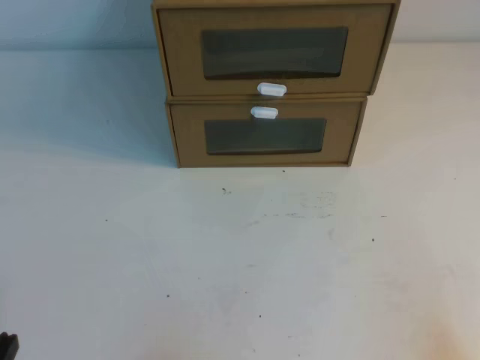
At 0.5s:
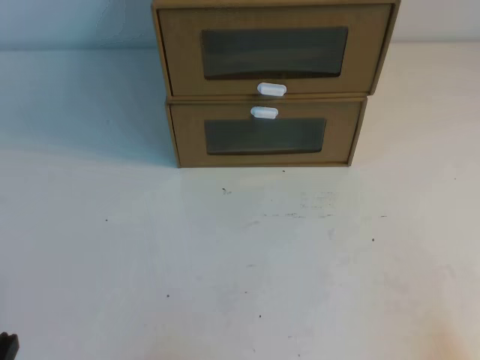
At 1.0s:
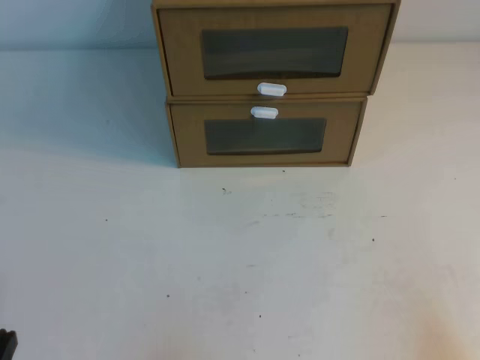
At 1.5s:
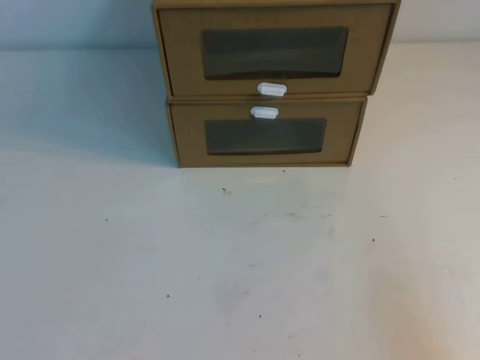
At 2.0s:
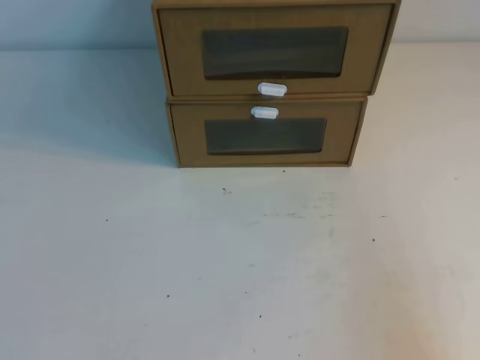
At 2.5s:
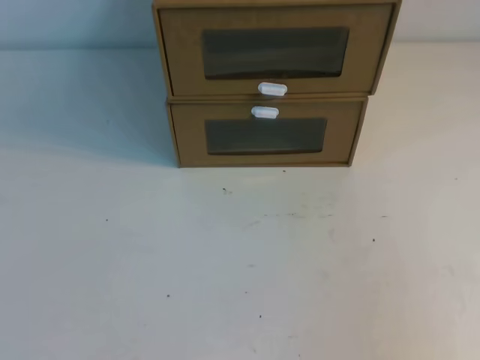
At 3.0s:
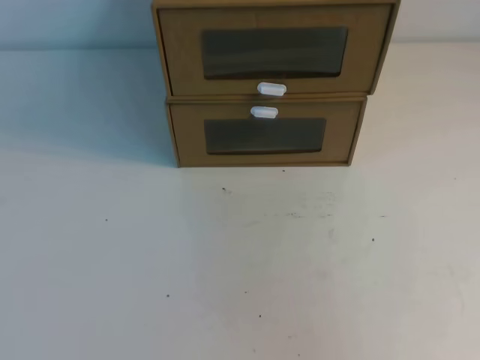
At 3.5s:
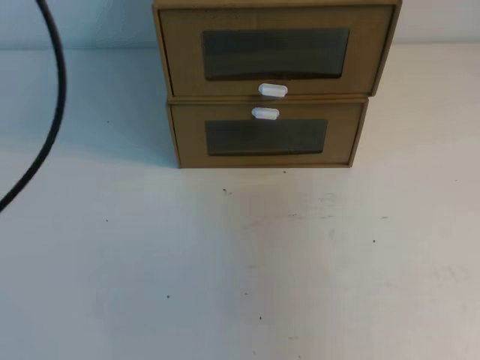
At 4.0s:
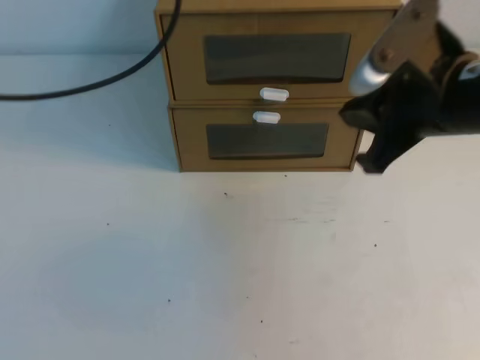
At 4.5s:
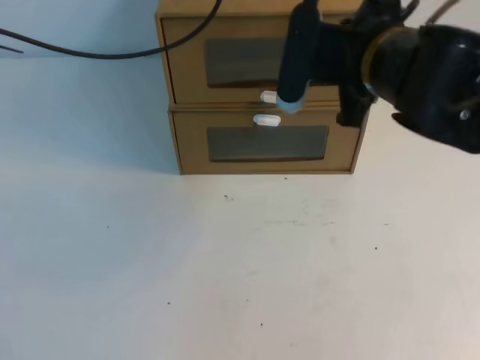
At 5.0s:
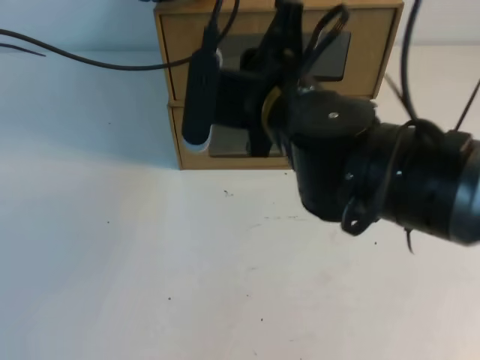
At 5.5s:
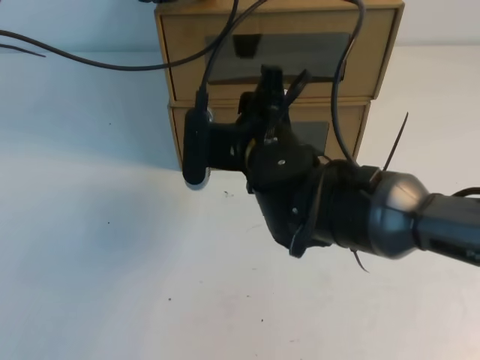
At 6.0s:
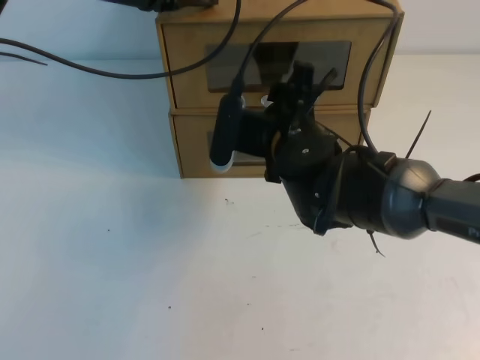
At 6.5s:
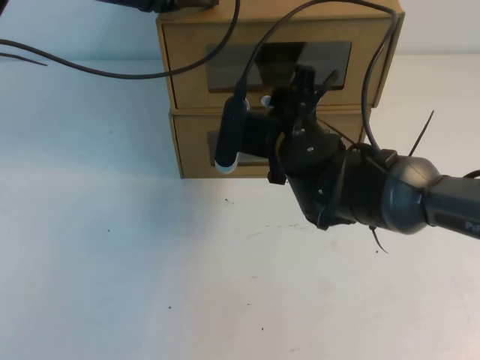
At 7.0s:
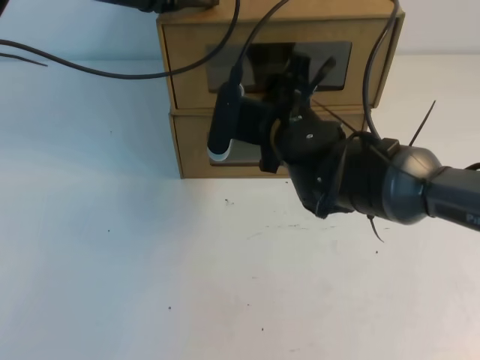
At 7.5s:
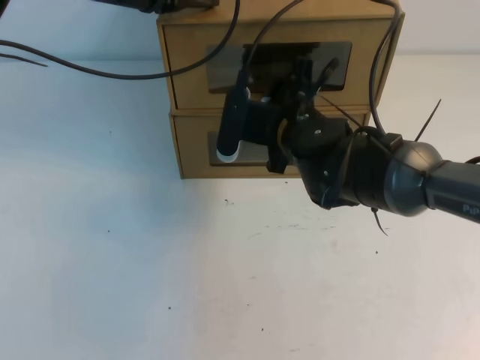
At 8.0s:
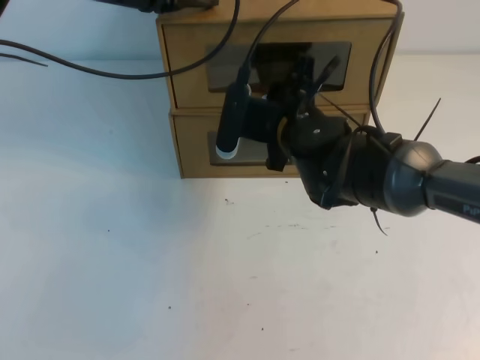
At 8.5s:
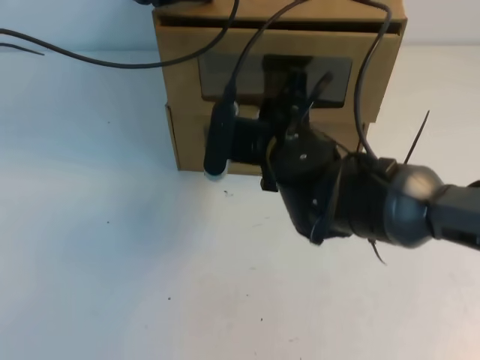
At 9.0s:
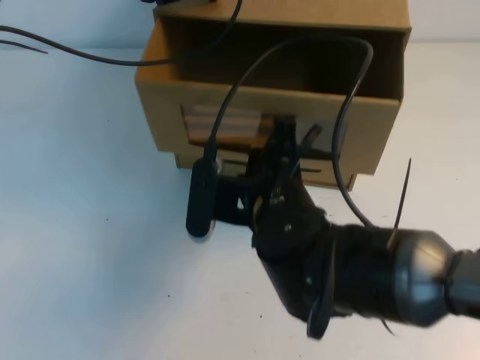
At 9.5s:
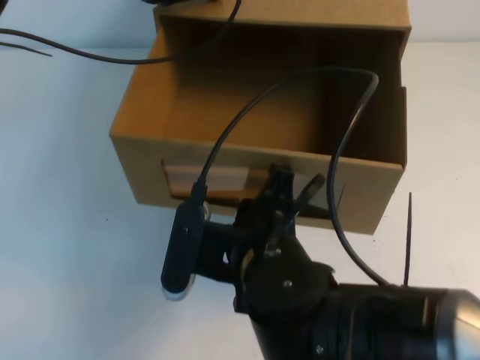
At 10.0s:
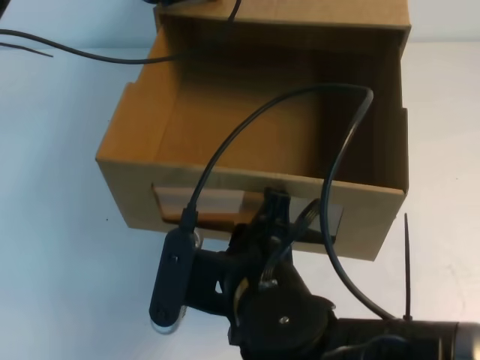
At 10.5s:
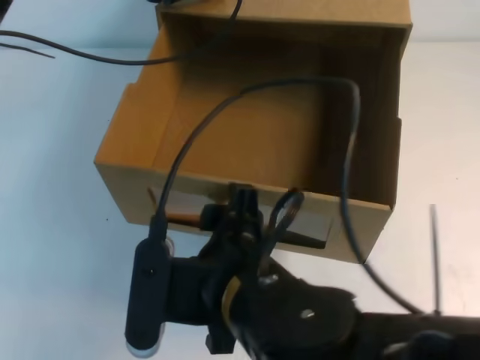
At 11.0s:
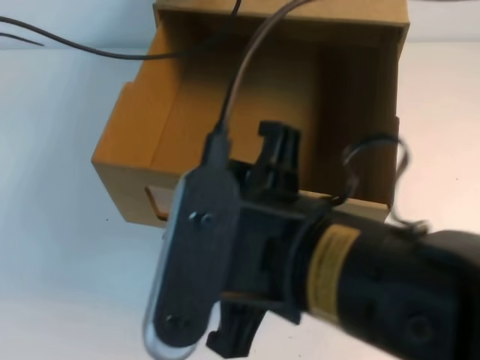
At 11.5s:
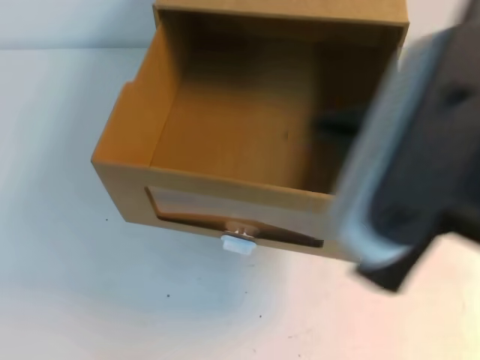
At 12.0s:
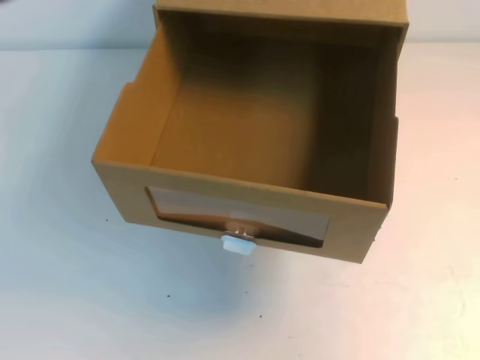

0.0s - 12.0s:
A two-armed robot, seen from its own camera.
Task of the whole recording: open the shoebox on the table.
2.0s - 4.0s: The left gripper goes approximately 35 cm forward and upward. Meanwhile the right gripper shifts roughly 30 cm forward, to the left and upward.
4.0s - 6.0s: The left gripper goes about 15 cm forward, downward and to the right, while the right gripper goes approximately 20 cm to the left and downward, and opens.
6.0s - 8.0s: The right gripper closes up.
8.0s - 10.0s: The right gripper moves backward, some 20 cm.
10.0s - 12.0s: The left gripper goes about 30 cm backward and upward. The right gripper shifts some 30 cm to the right and upward, and closes up.

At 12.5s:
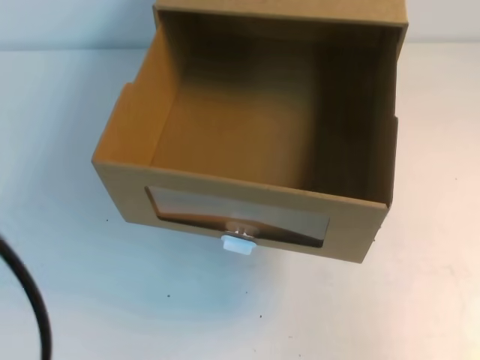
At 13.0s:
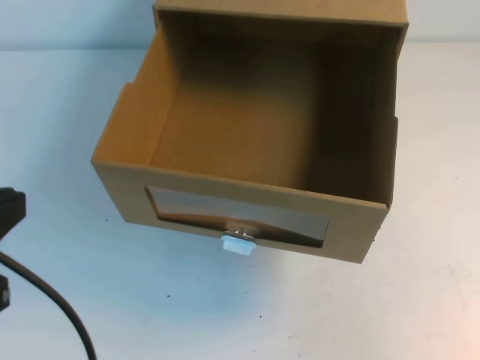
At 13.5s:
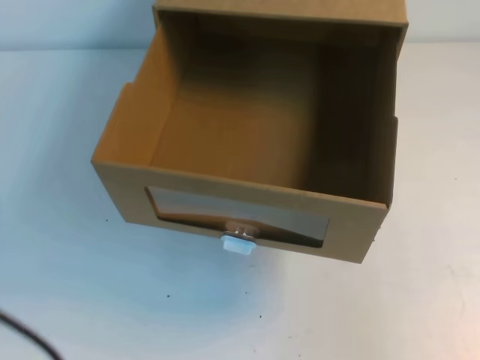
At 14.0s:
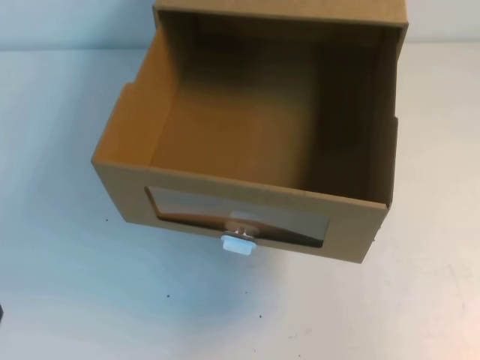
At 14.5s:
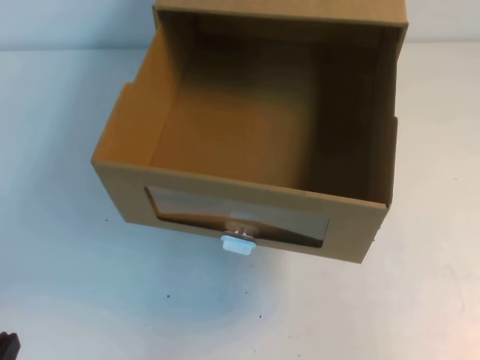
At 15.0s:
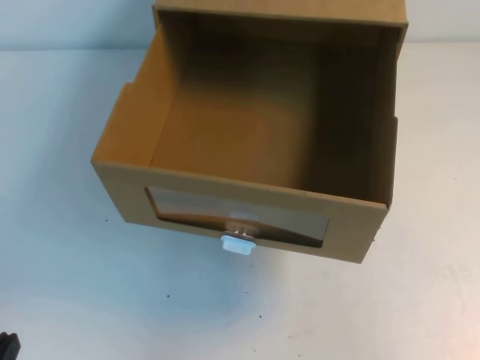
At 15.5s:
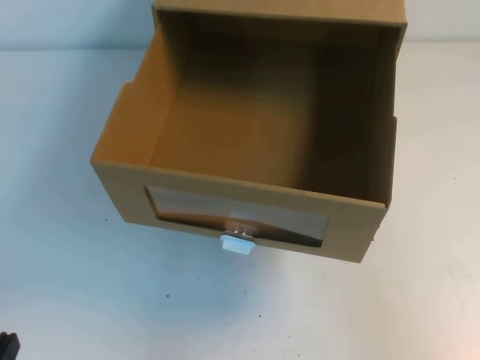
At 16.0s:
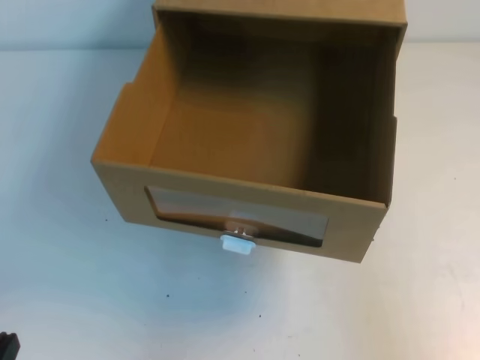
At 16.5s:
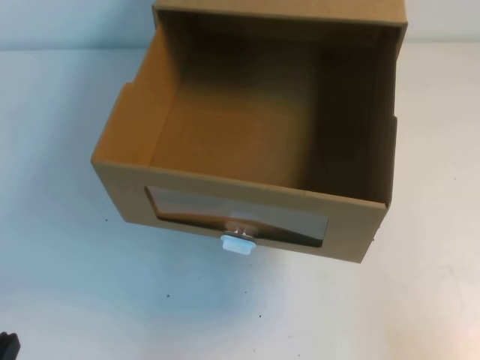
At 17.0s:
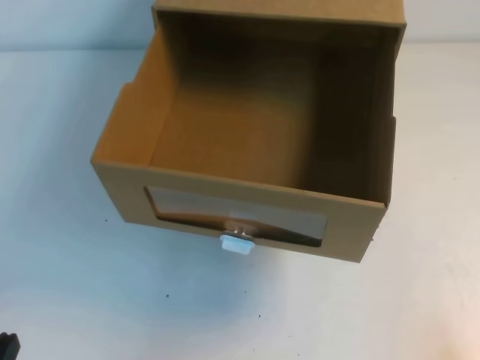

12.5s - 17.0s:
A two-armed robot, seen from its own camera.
Task of the whole recording: open the shoebox on the table.
Step, 12.5s - 17.0s: Open the shoe box.
12.5s - 14.5s: The left gripper moves downward, about 30 cm.
14.5s - 17.0s: The right gripper moves downward, about 15 cm.

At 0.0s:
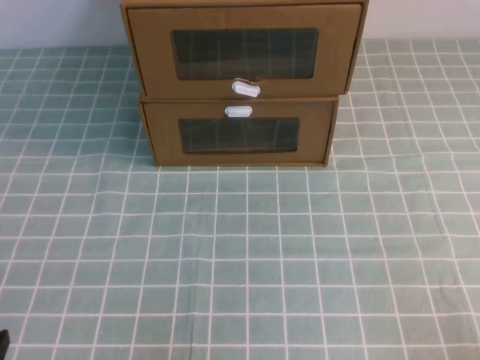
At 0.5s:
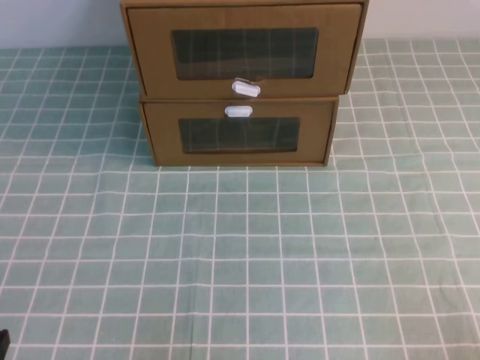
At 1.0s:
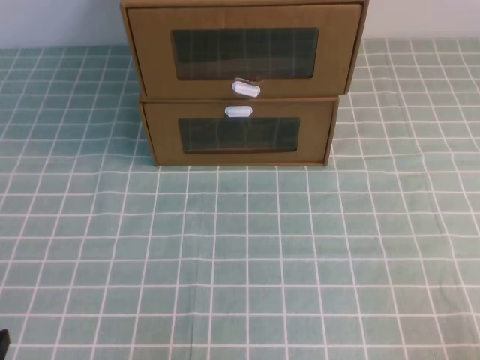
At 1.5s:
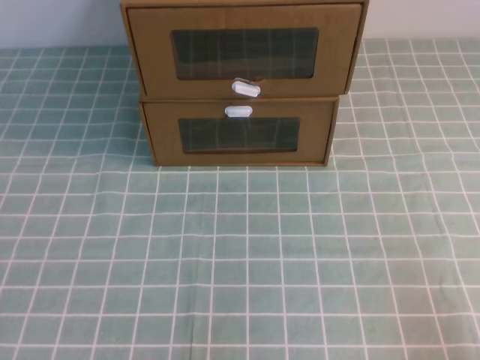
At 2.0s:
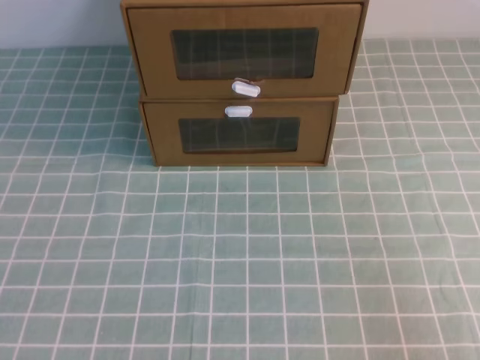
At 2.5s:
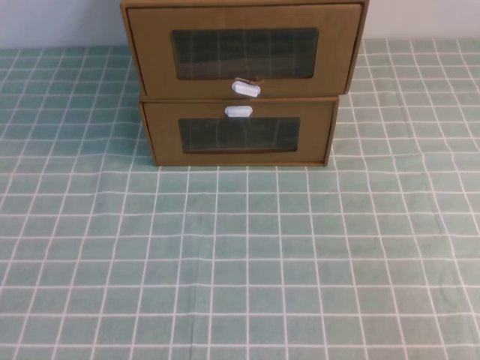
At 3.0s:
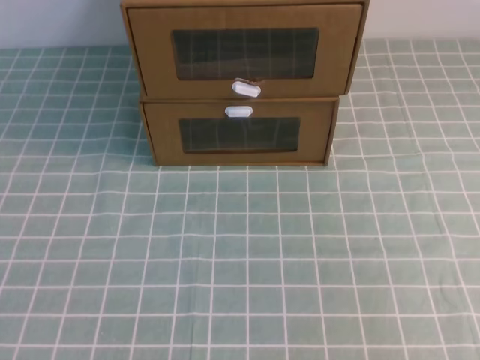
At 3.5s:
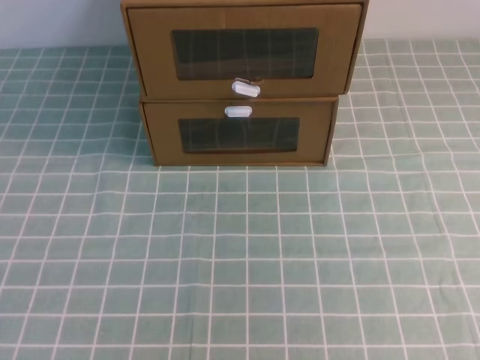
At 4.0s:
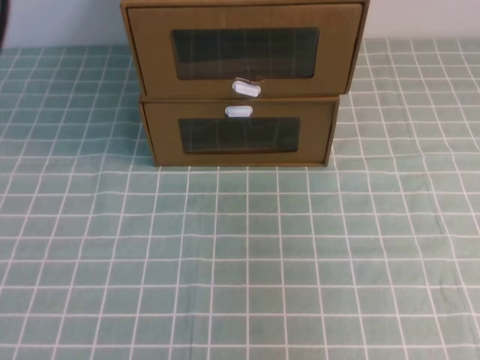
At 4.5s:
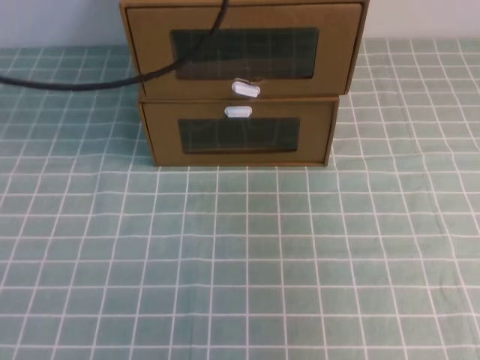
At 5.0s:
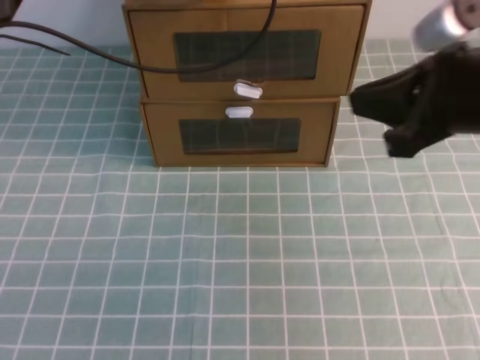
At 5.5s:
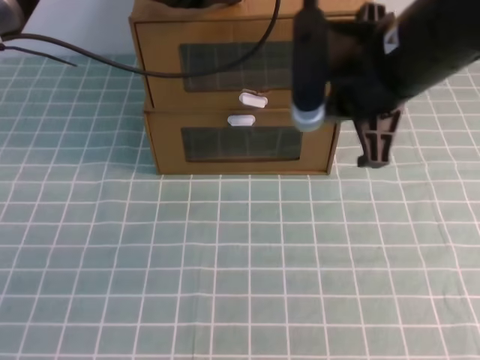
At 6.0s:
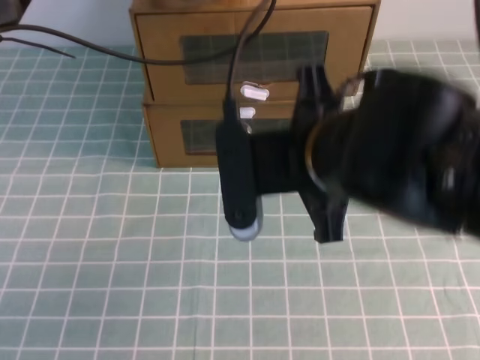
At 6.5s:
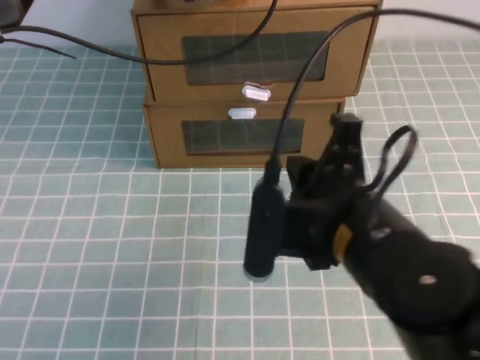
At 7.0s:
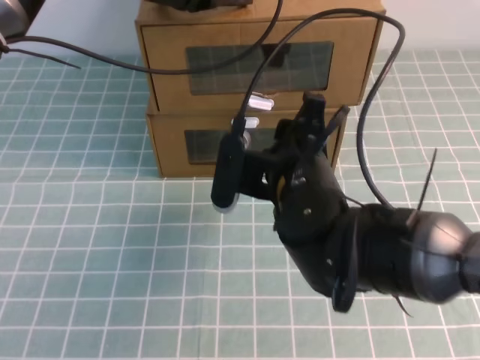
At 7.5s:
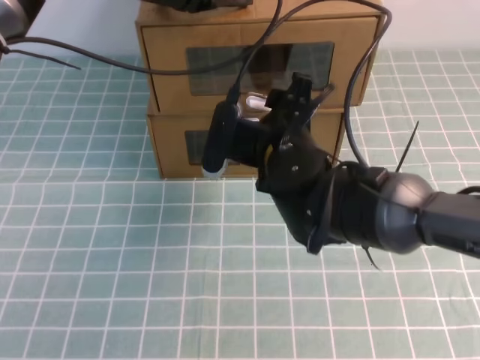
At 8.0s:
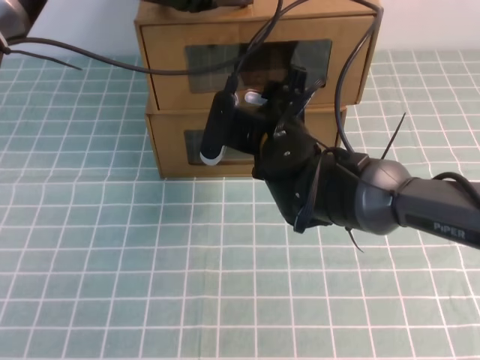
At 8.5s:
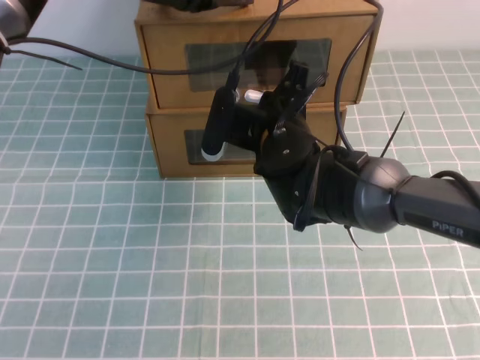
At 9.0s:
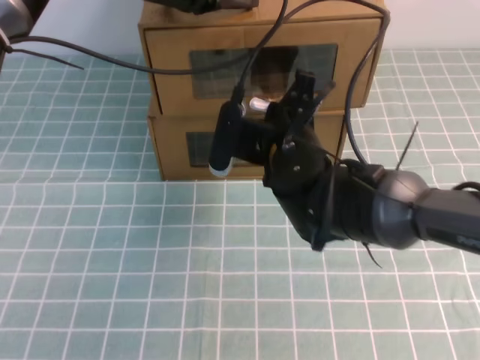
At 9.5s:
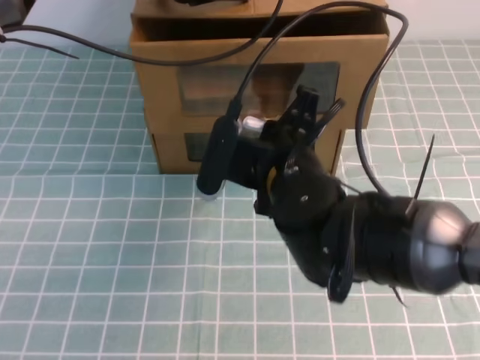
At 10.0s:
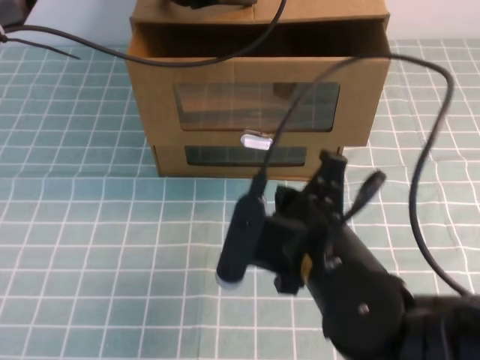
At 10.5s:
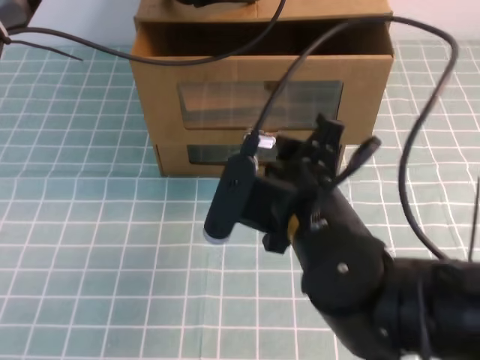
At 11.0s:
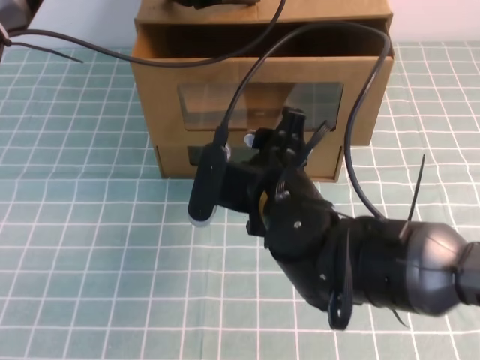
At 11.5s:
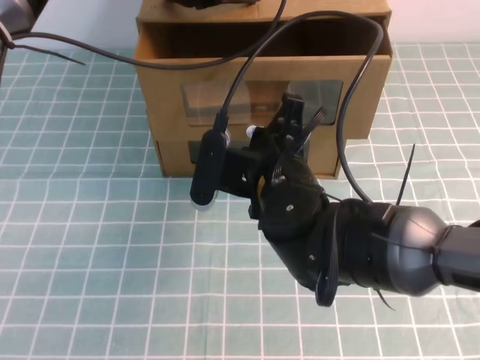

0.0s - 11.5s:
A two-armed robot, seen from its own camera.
Task of the whole recording: open the shoebox on the cyan tablecloth.
4.0s - 6.0s: The left gripper moves forward, to the right and downward, roughly 30 cm. Meanwhile the right gripper shifts about 25 cm to the left, forward and downward.
6.0s - 7.5s: The right gripper shifts about 15 cm downward and forward, and opens its fingers.
7.5s - 9.5s: The right gripper closes up.
9.5s - 11.5s: The right gripper moves roughly 10 cm backward and comes back, and opens, then closes once more.
